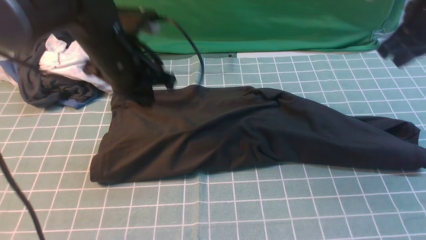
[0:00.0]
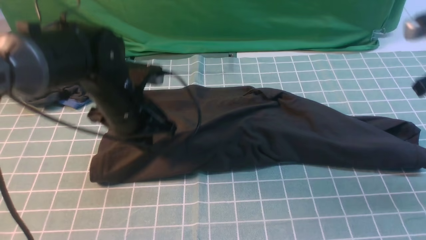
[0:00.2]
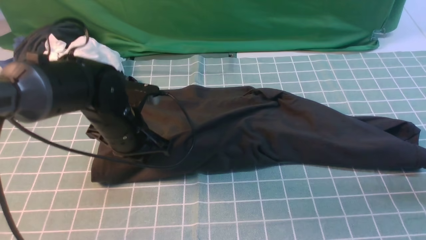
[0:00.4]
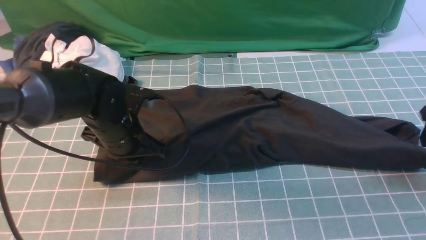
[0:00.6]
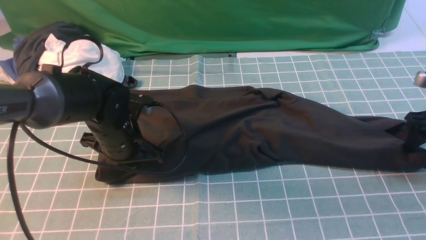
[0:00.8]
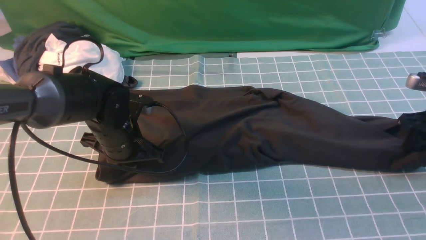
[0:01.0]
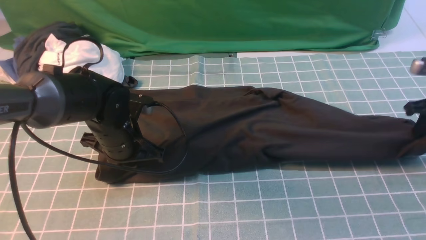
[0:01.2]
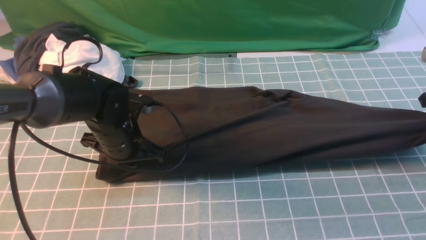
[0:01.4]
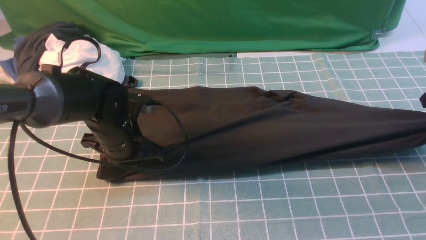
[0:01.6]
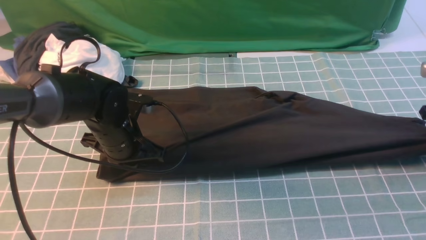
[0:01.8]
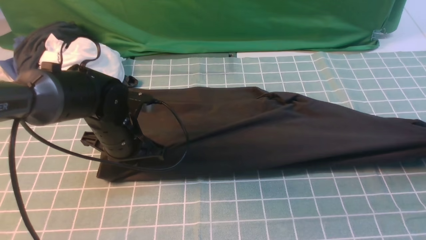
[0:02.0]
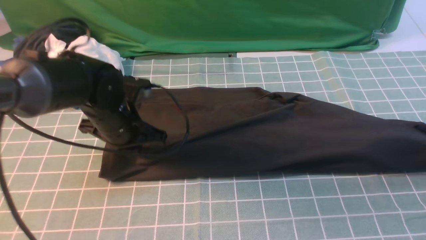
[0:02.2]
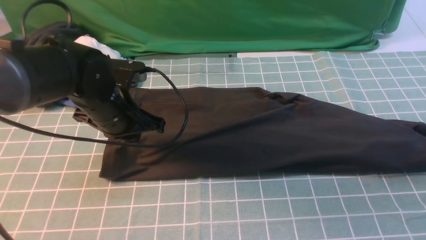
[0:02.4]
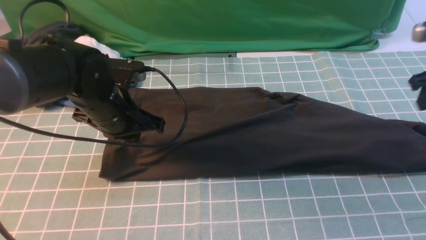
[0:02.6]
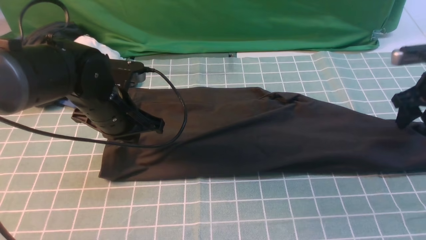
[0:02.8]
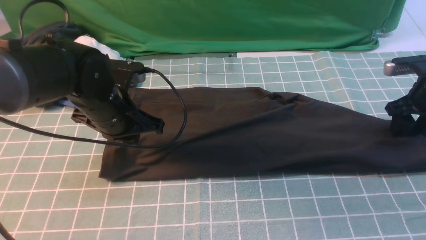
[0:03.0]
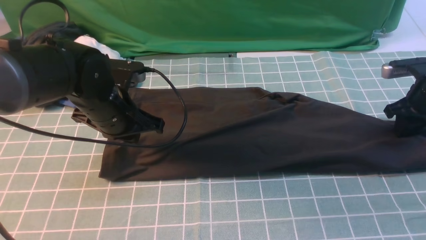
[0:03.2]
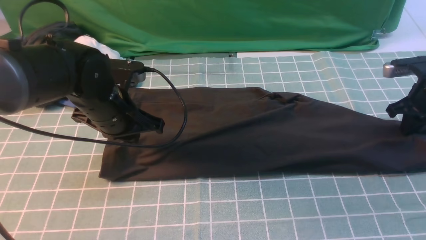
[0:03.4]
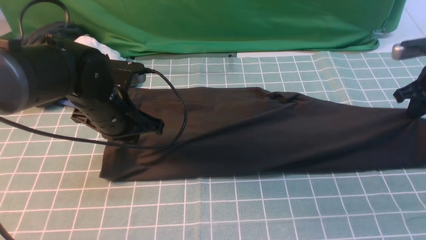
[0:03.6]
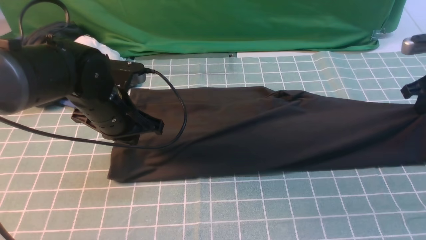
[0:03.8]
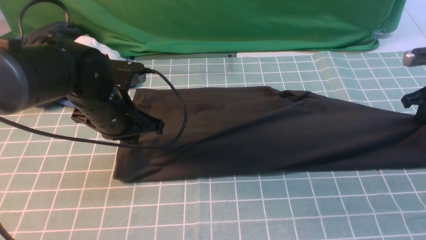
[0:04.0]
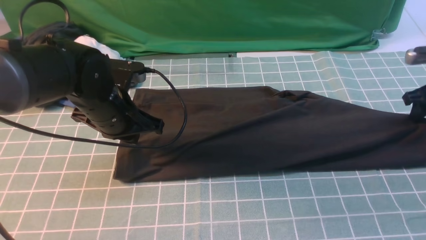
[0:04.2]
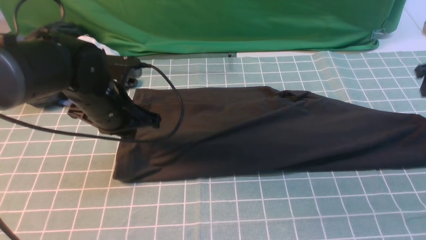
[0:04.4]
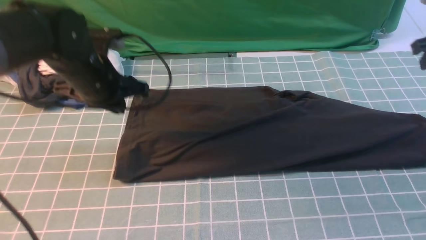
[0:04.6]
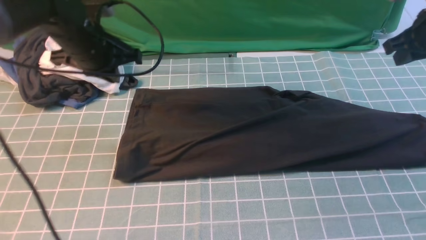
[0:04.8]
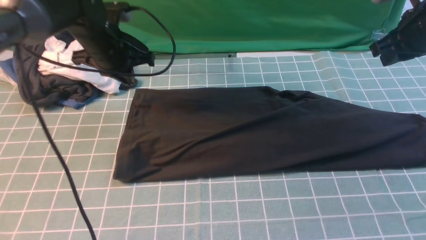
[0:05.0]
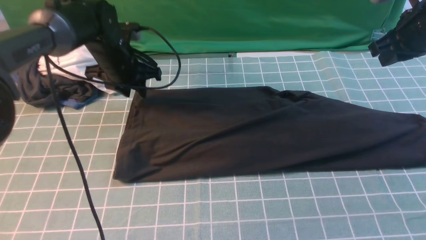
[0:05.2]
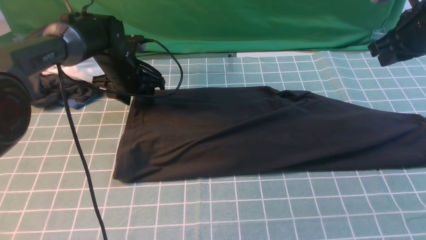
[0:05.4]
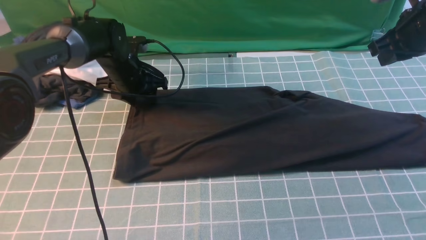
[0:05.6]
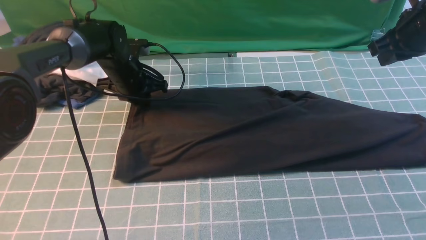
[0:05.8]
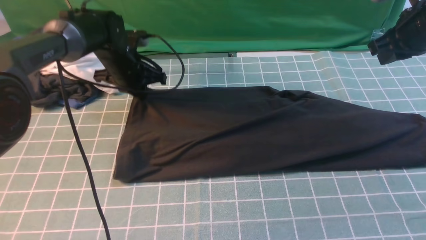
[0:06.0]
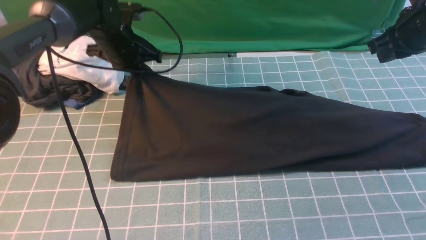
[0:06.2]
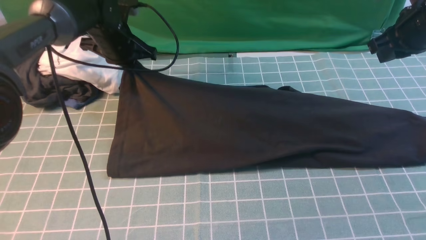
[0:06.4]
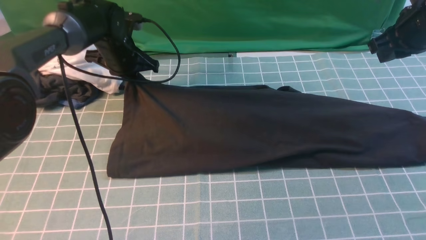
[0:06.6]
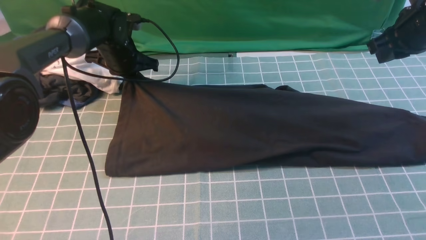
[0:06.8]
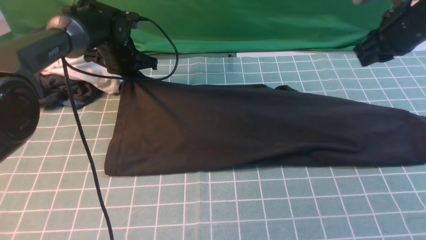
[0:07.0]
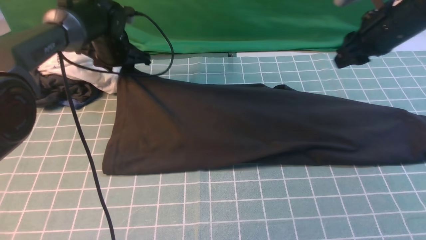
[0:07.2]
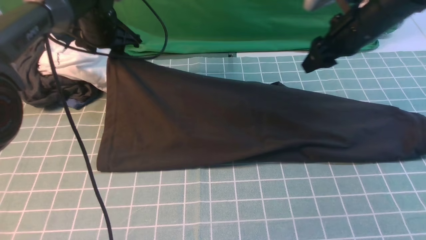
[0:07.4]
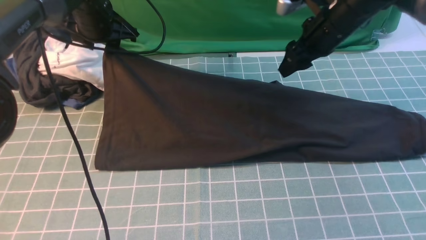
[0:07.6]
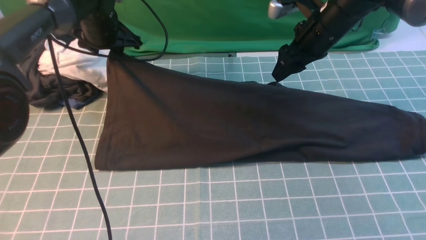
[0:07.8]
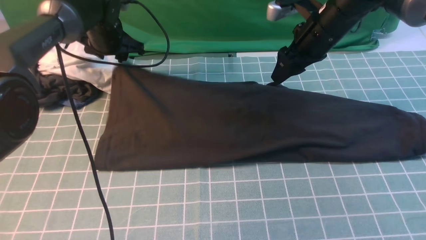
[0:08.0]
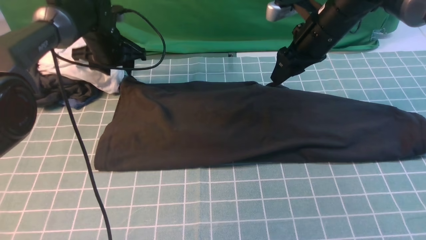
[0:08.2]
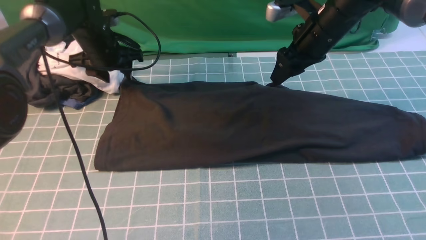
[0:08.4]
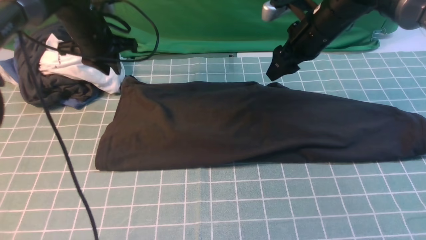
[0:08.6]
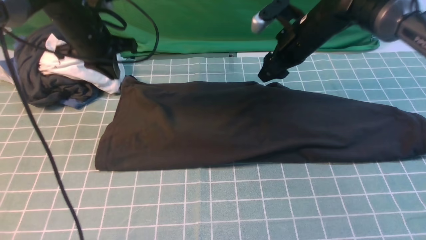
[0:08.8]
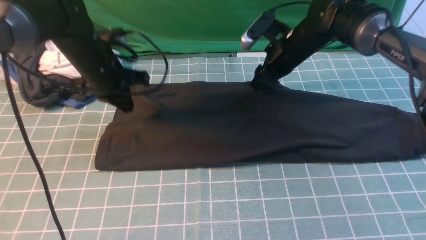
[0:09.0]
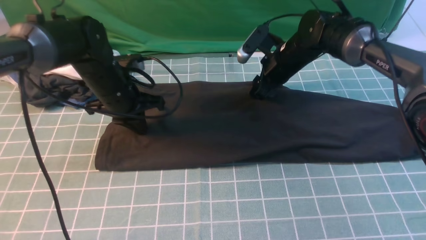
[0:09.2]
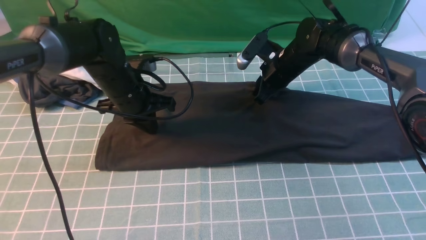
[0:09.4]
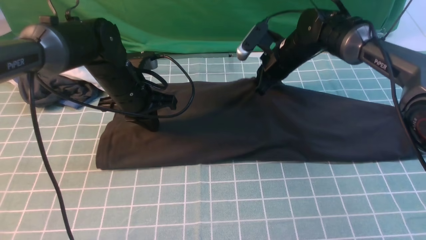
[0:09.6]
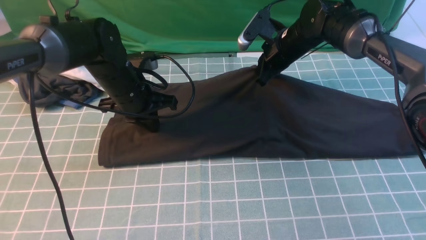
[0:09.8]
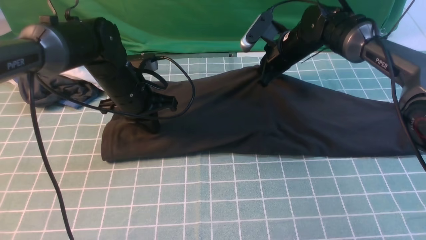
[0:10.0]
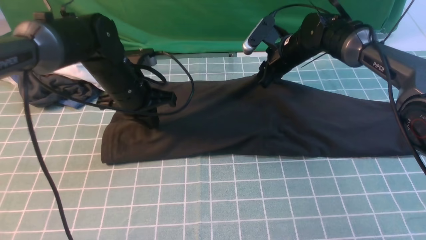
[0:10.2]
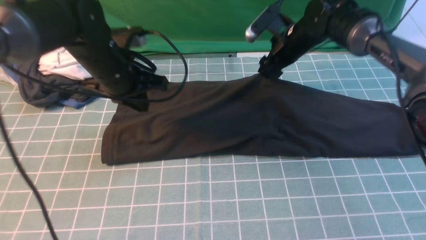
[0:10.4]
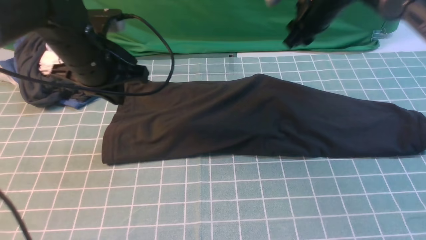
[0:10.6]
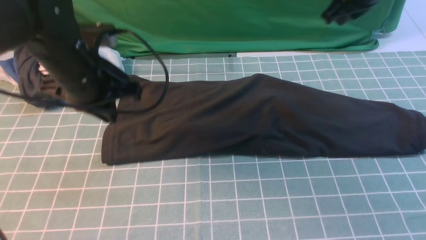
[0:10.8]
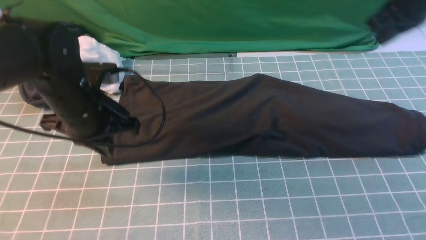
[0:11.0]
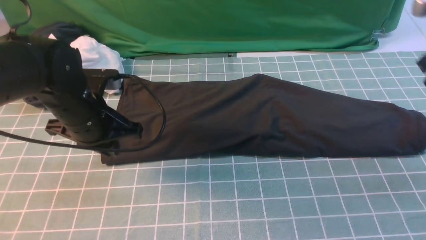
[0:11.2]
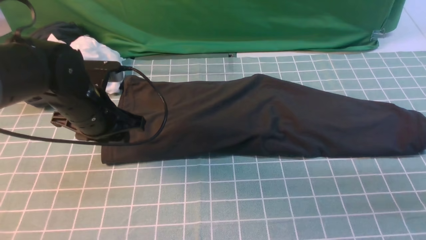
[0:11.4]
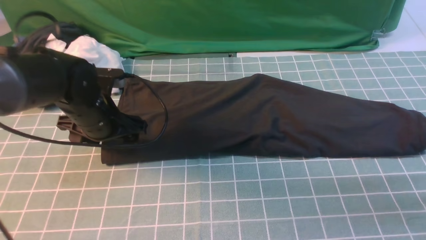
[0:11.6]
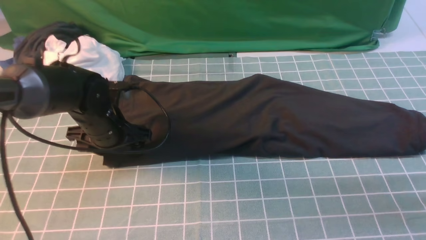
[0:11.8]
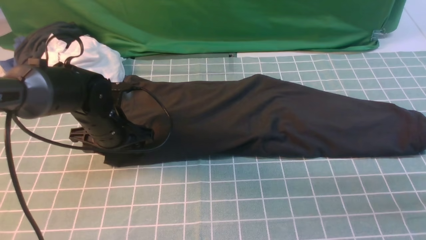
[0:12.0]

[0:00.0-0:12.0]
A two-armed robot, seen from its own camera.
0.0 to 1.6 s: The right gripper moves to the right and downward, about 15 cm, and opens, then closes again; the left gripper is displaced downward by approximately 10 cm.
1.6 to 3.0 s: The left gripper moves upward, about 5 cm. Meanwhile the right gripper changes place by roughly 5 cm, and opens up.
3.0 to 4.4 s: The right gripper moves upward, roughly 5 cm, and closes, then opens again.
4.4 to 6.0 s: The left gripper shifts approximately 15 cm forward, and opens, then closes again. The right gripper shifts approximately 10 cm to the left and upward, and closes up.
6.0 to 7.6 s: The right gripper is displaced to the left by some 10 cm, and opens its fingers, while the left gripper moves upward, about 5 cm, and opens up.
7.6 to 9.0 s: The left gripper travels backward by roughly 5 cm, and closes up, while the right gripper goes about 10 cm downward and to the left.
9.0 to 10.4 s: The right gripper closes, then opens again. The left gripper shifts by roughly 5 cm.
10.4 to 12.0 s: The right gripper is displaced to the right and backward by approximately 30 cm, and closes. The left gripper moves downward, approximately 10 cm, and opens up.

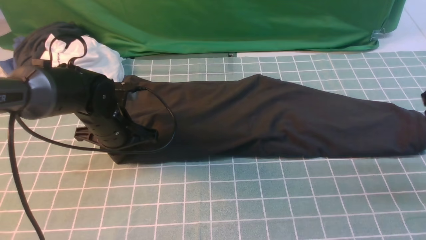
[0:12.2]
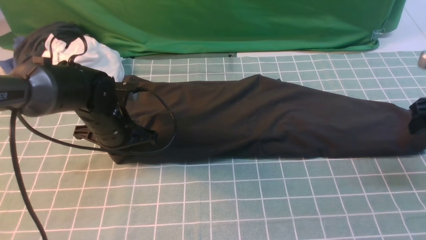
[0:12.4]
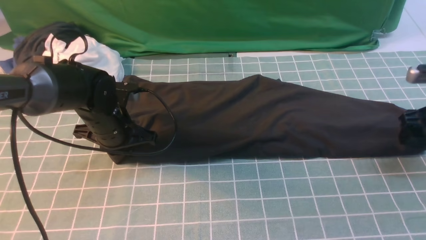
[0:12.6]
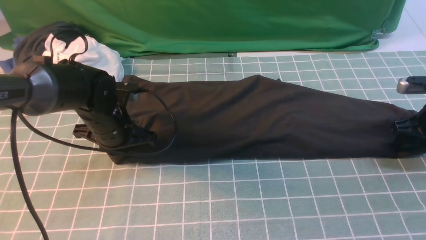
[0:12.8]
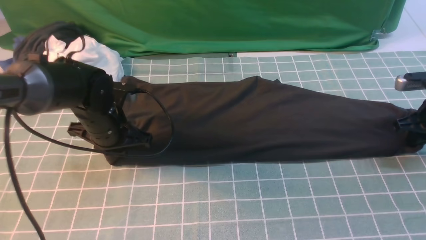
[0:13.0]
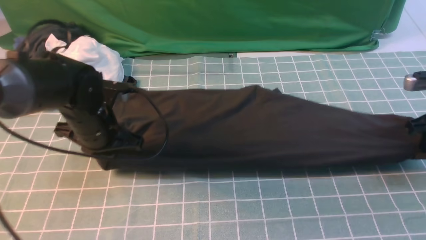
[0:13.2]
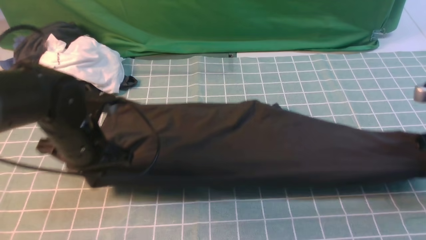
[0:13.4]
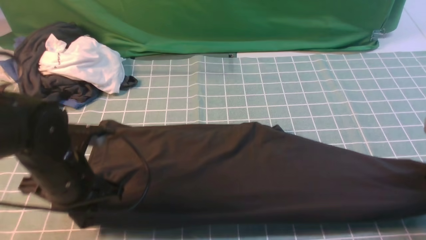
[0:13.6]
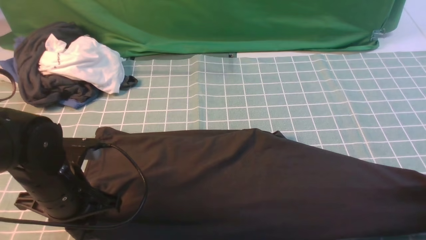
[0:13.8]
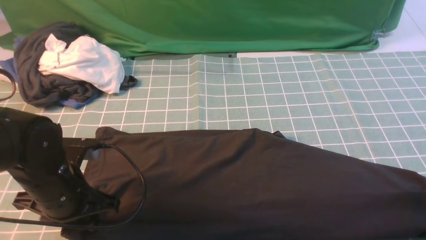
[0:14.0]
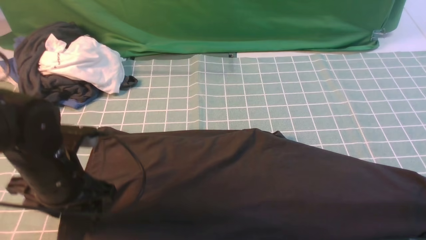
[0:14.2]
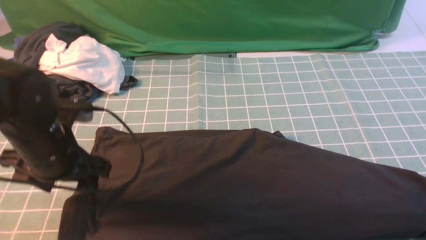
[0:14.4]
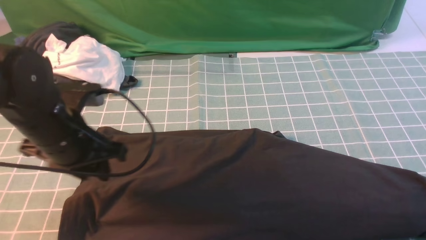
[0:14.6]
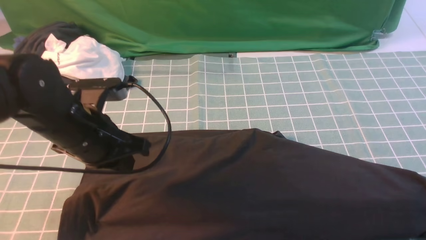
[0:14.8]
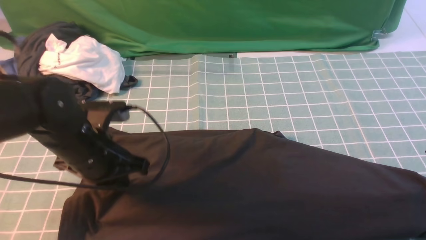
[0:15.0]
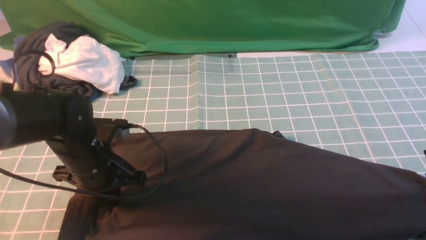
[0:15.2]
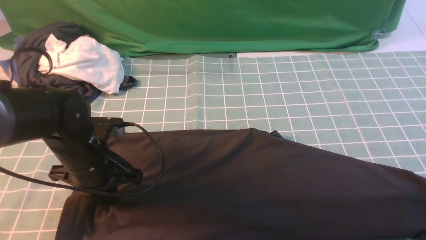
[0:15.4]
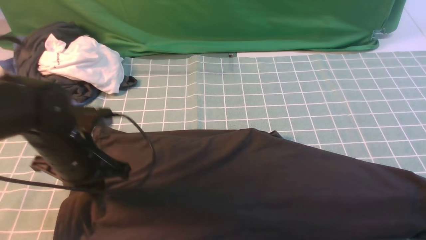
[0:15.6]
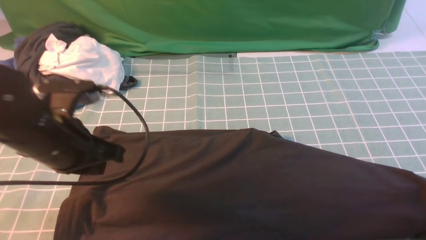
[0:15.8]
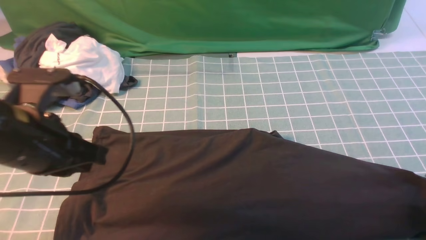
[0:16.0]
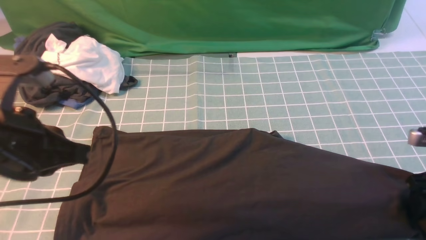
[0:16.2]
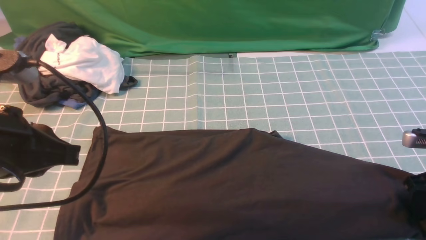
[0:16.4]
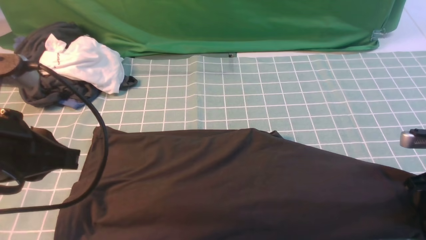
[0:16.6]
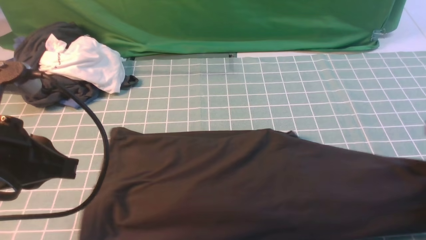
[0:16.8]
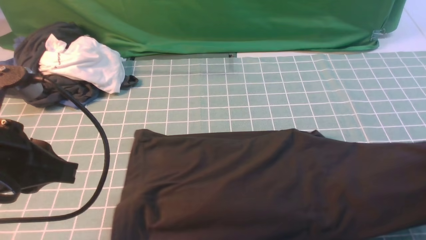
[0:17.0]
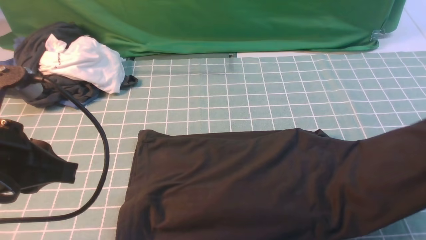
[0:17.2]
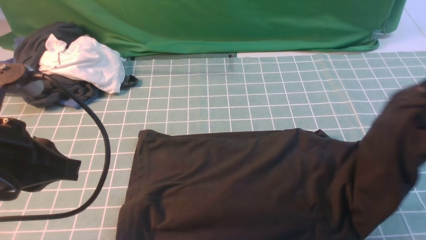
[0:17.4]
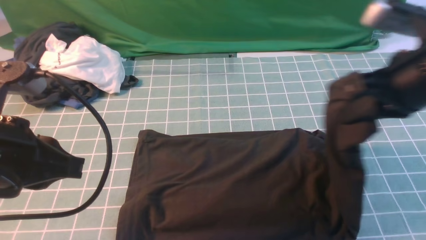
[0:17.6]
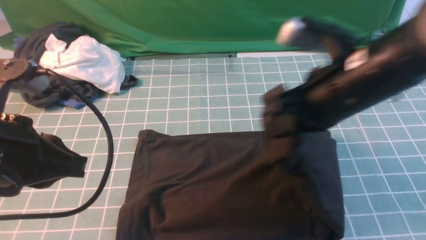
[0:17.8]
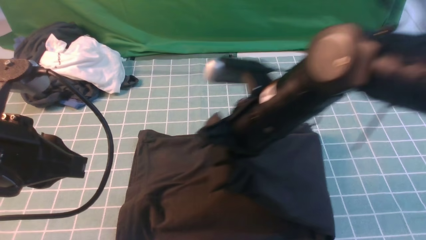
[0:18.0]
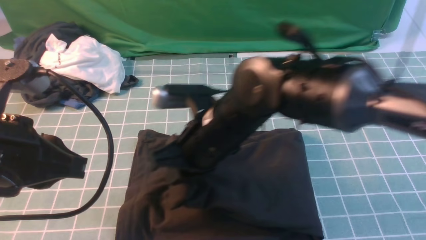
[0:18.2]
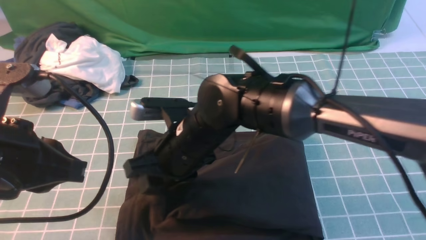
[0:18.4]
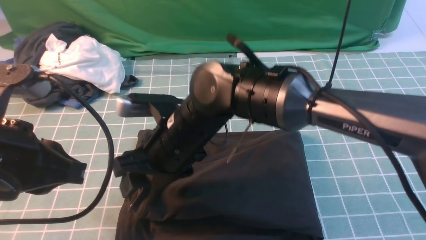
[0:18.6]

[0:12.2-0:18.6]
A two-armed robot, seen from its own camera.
Step, 12.2 to 16.6 s: use the right arm to clamp the right edge of the fabric.
12.2 to 13.8 s: The left gripper heads backward, covering about 15 cm. The right gripper shifts roughly 10 cm backward and downward, and closes, then opens again.
13.8 to 15.4 s: The right gripper moves upward, some 5 cm, while the left gripper opens, then closes again.
15.4 to 17.0 s: The right gripper goes downward and returns, approximately 10 cm each way, and opens, then closes once more. Meanwhile the left gripper travels upward and backward by approximately 20 cm.
17.0 to 18.6 s: The right gripper shifts approximately 40 cm to the left, and opens up.
